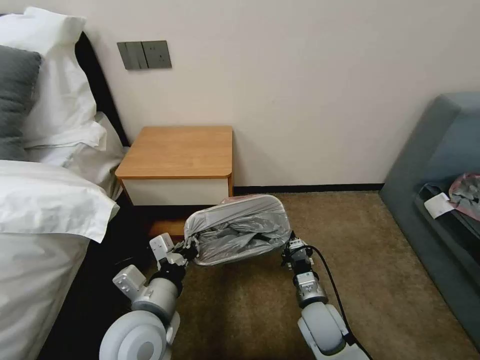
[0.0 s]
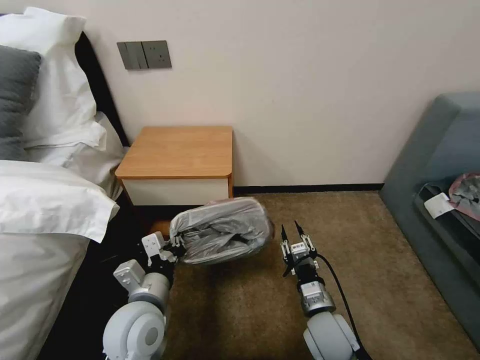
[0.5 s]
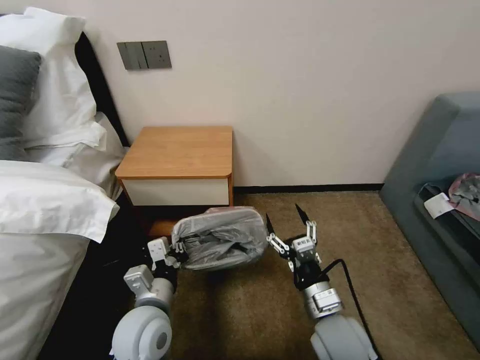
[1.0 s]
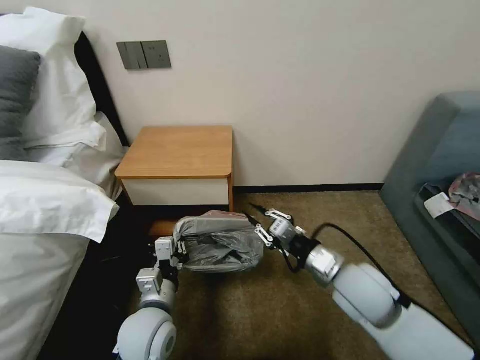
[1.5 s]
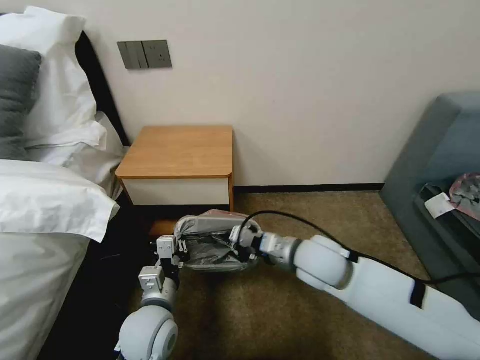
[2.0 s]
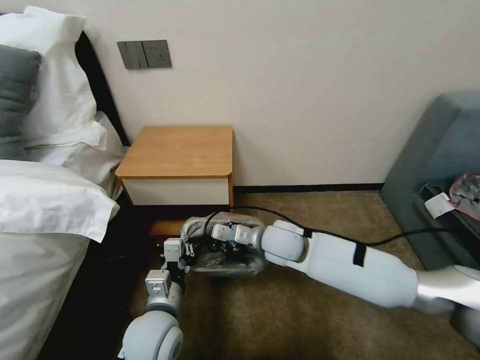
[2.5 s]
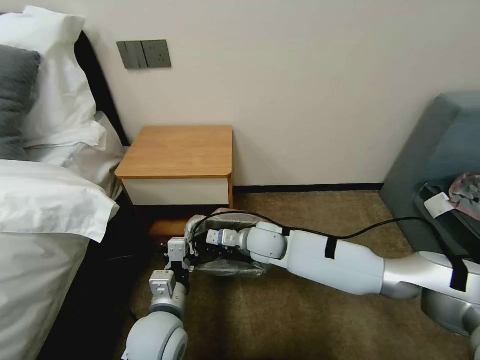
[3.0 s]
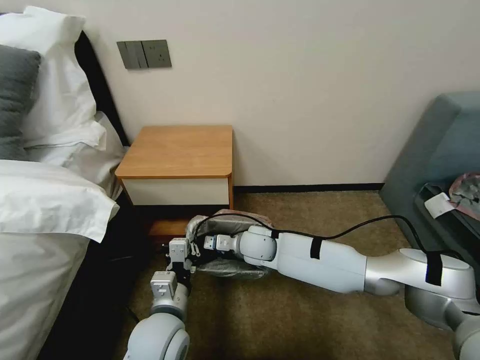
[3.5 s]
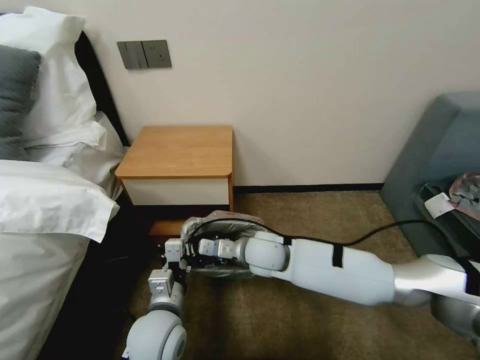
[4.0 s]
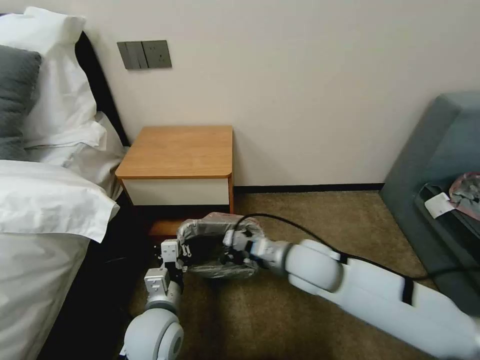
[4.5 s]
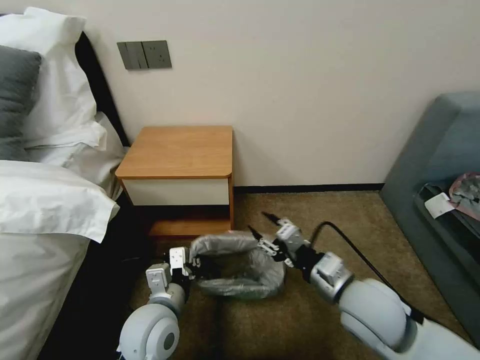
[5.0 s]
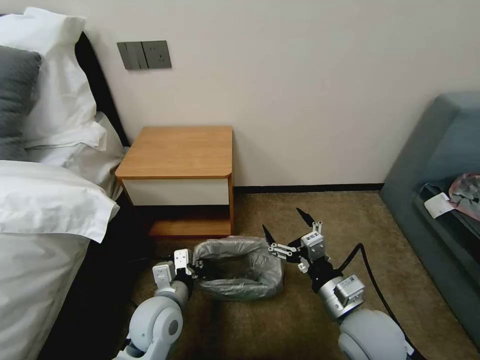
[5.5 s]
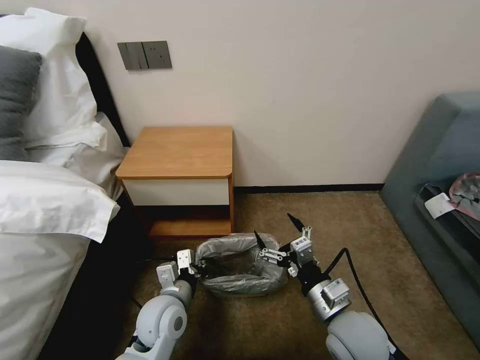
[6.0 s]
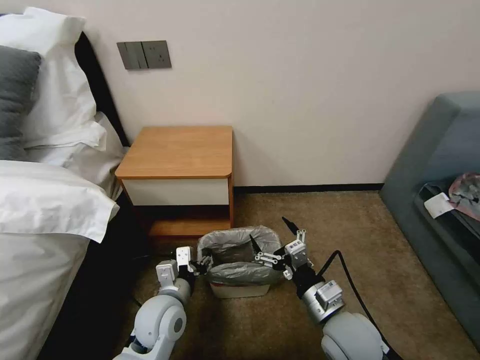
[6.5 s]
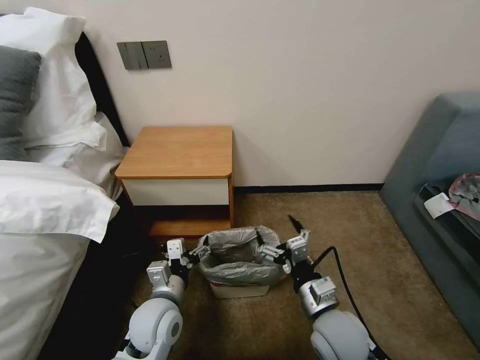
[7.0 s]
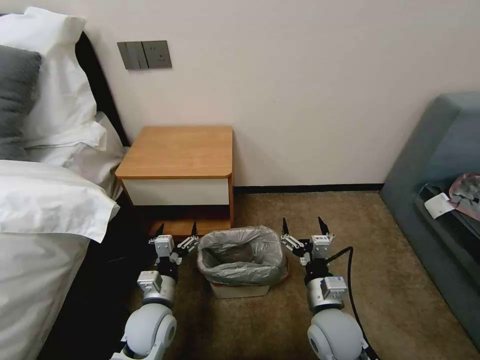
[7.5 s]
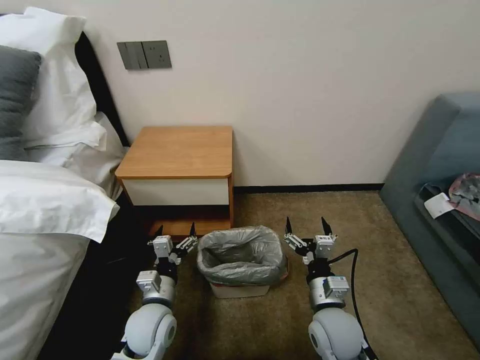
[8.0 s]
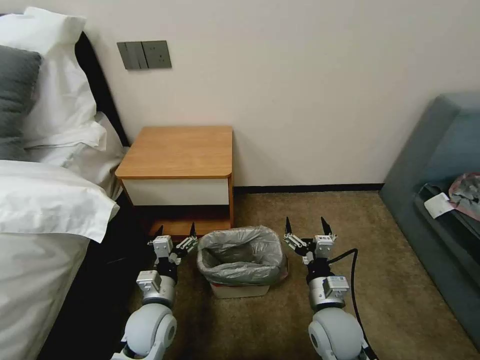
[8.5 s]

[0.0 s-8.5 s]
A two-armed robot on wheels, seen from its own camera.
Task of the whole recording: Pick up the garbage bag from the table and place it over the trash can.
0.0 to 2.0 s: The right gripper is displaced upward and forward by approximately 20 cm, and opens, then closes once more, while the left gripper is displaced downward by about 5 cm.
2.0 to 4.0 s: The right gripper travels to the left and downward by roughly 10 cm.
4.0 to 6.5 s: The right gripper shifts roughly 20 cm backward and to the right, and opens its fingers, while the left gripper opens its fingers.
6.5 to 8.5 s: The right gripper is displaced downward by some 5 cm; the left gripper opens its fingers.

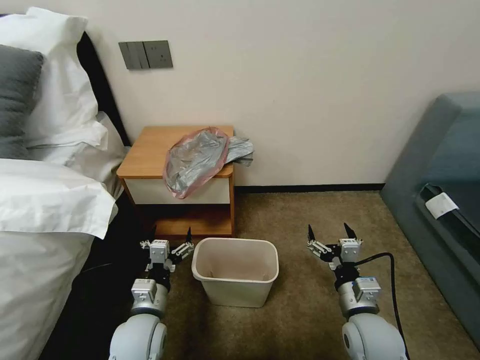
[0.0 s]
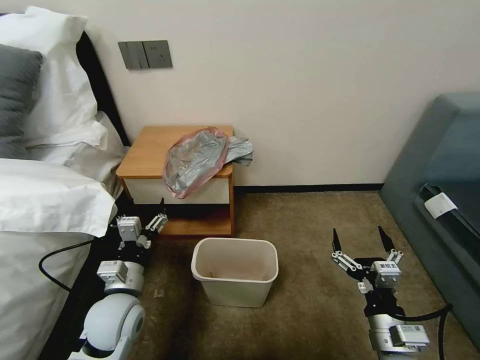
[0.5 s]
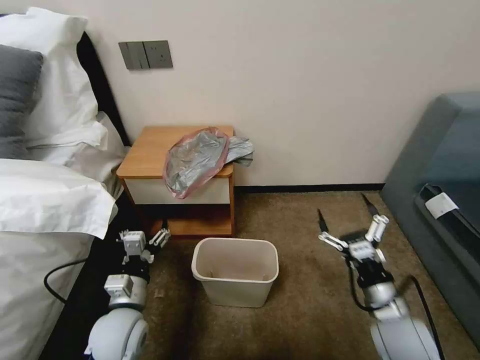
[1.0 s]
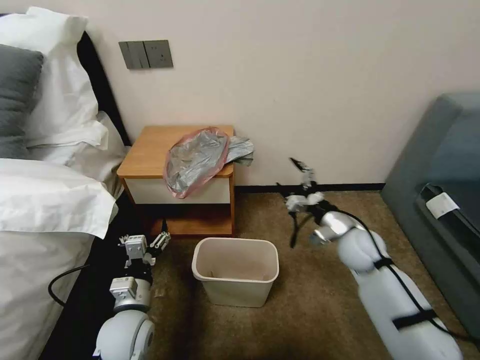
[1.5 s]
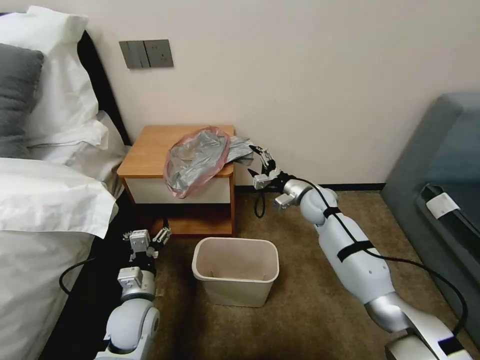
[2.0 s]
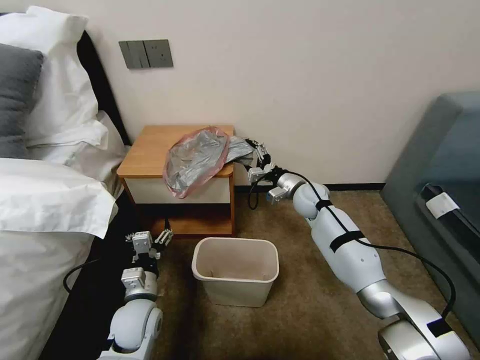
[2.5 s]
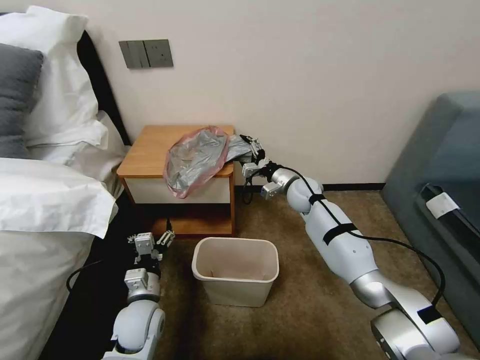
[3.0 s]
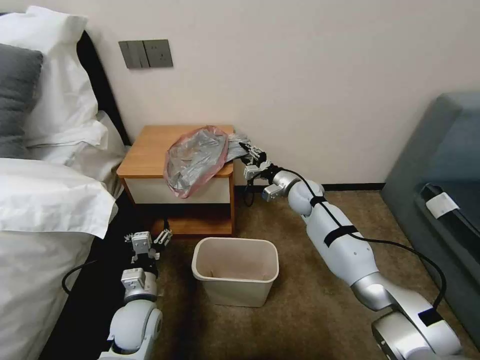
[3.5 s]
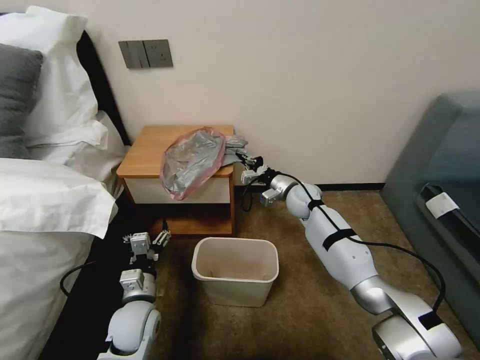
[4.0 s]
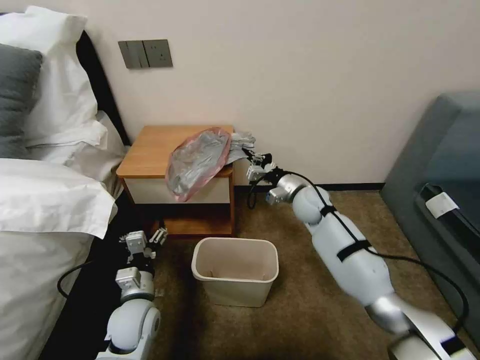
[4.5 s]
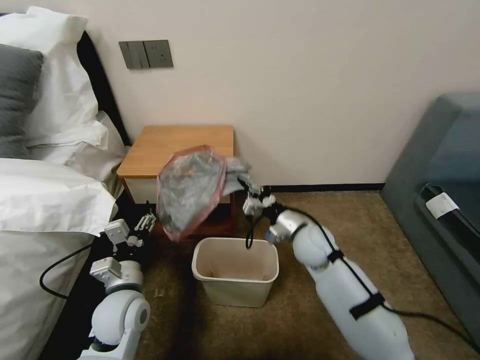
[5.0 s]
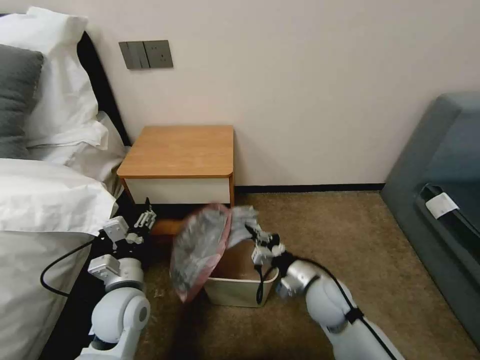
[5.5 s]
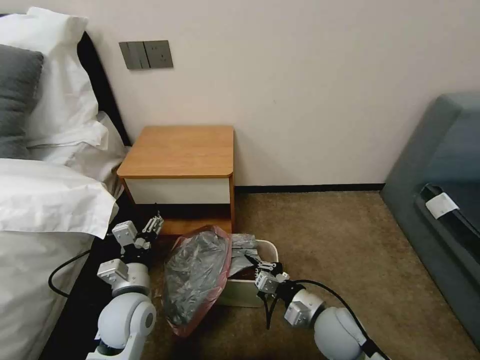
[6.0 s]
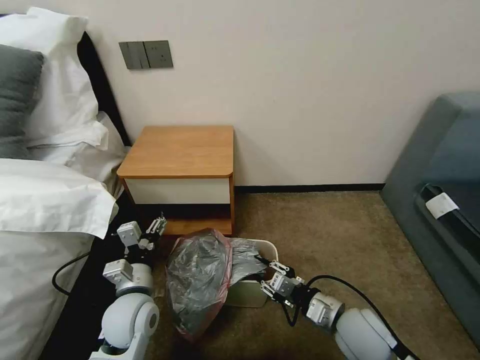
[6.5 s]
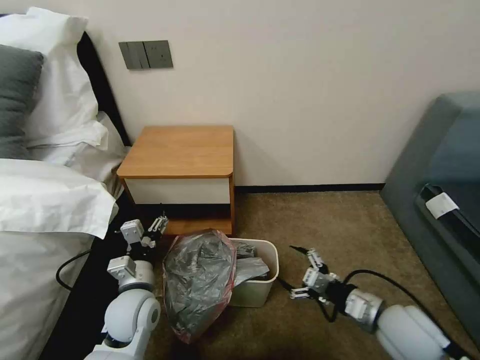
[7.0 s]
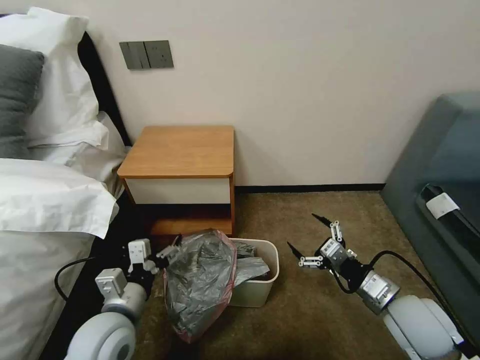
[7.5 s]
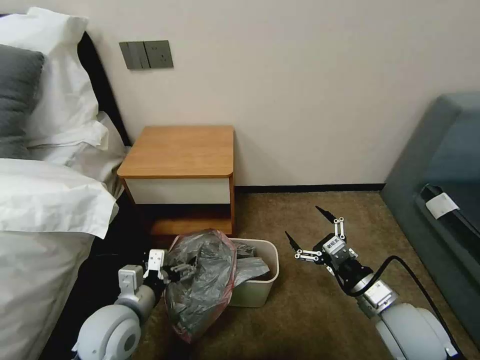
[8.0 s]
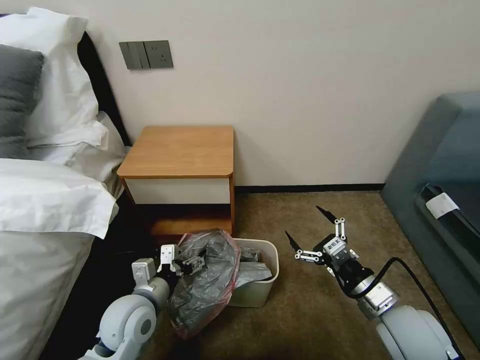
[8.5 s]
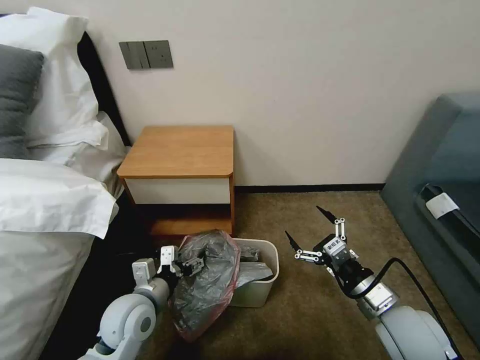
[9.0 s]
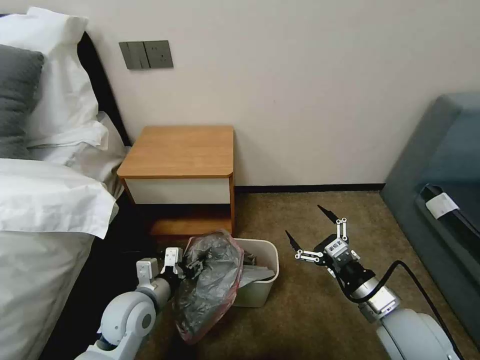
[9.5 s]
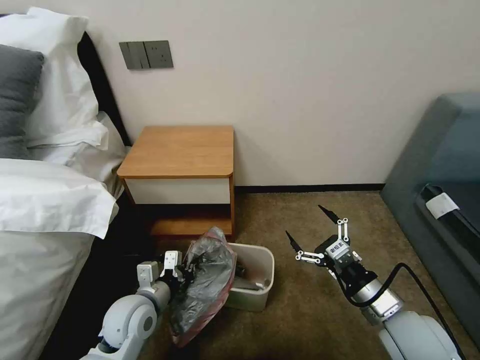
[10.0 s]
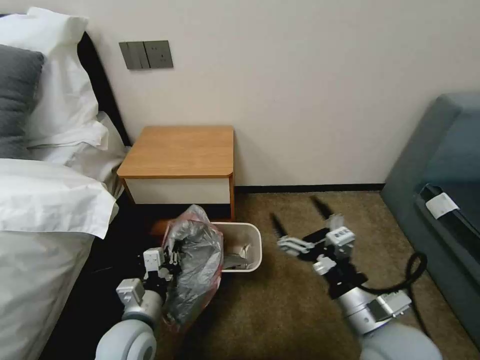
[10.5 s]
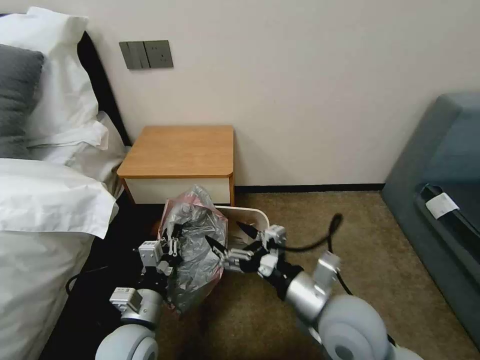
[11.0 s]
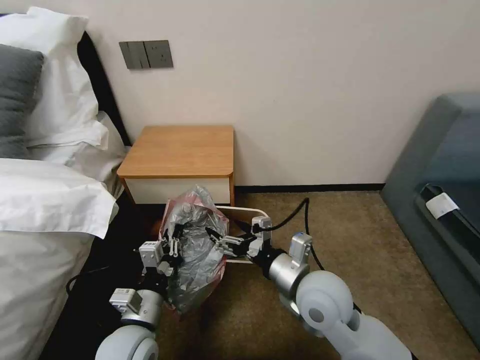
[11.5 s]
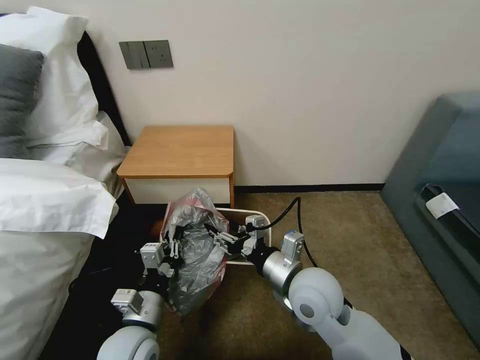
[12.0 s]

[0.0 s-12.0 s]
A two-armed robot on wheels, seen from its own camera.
Task of the whole recording: Pick up the garbage bag from the table and place it over the trash can.
2.0 to 4.0 s: The right gripper closes its fingers.
4.0 to 6.0 s: The right gripper is displaced backward by some 30 cm. Meanwhile the left gripper moves upward, roughly 5 cm.
6.0 to 8.0 s: The right gripper heads to the right and upward, covering approximately 15 cm, and opens its fingers.
8.0 to 10.0 s: The left gripper changes place by about 5 cm, and closes up.
10.0 to 12.0 s: The right gripper travels to the left and forward by some 15 cm, and closes, while the left gripper is displaced backward by about 5 cm.

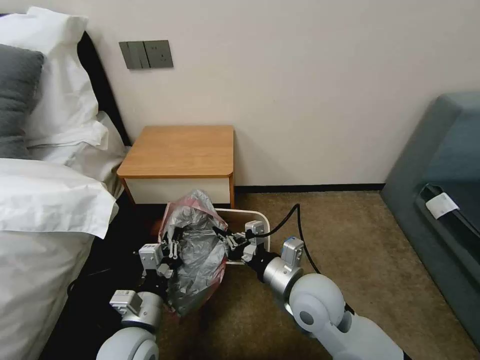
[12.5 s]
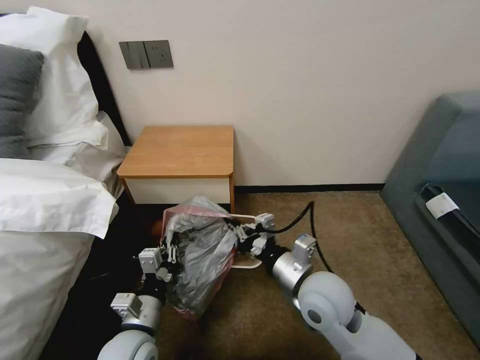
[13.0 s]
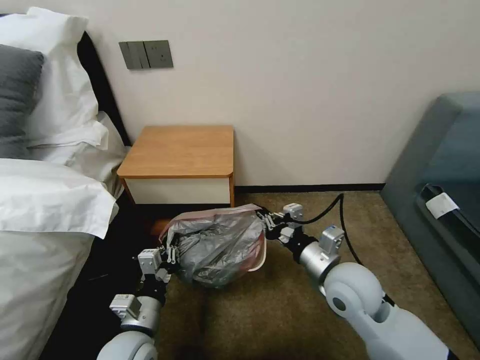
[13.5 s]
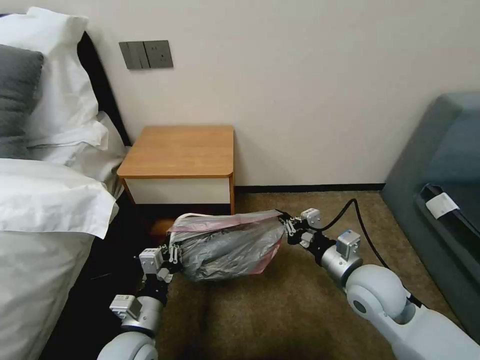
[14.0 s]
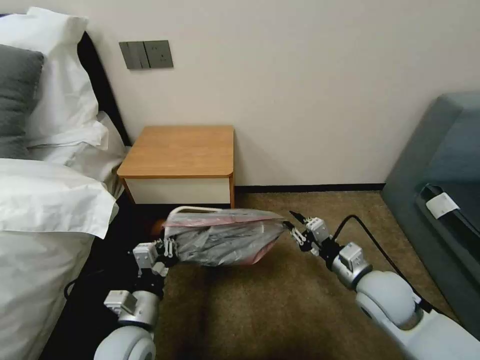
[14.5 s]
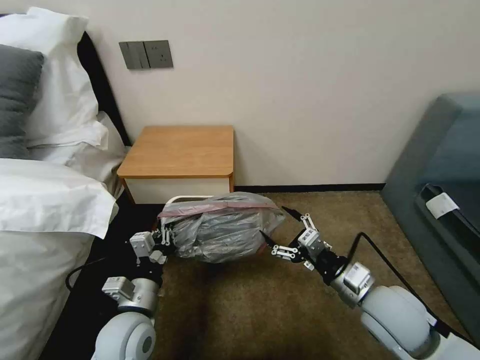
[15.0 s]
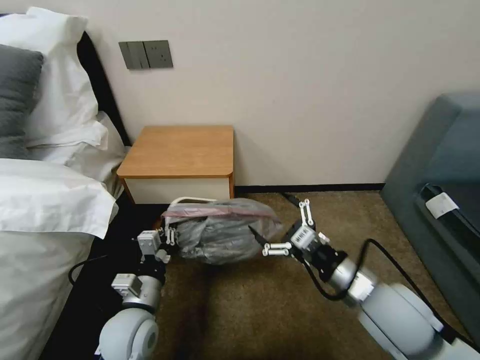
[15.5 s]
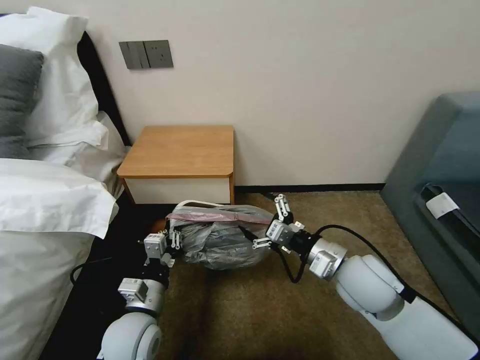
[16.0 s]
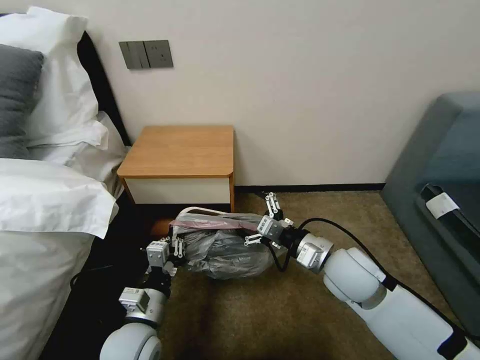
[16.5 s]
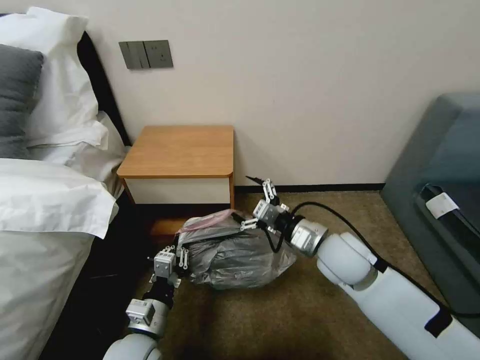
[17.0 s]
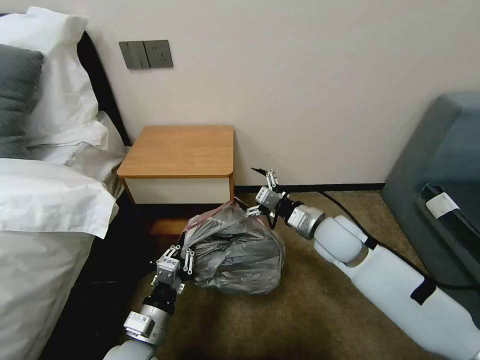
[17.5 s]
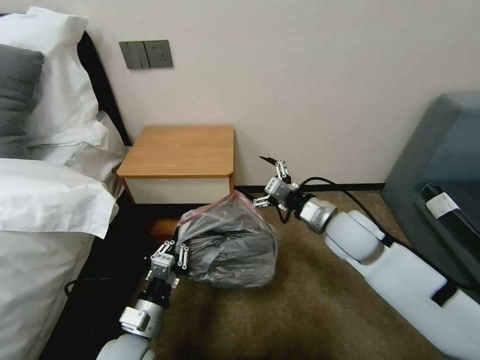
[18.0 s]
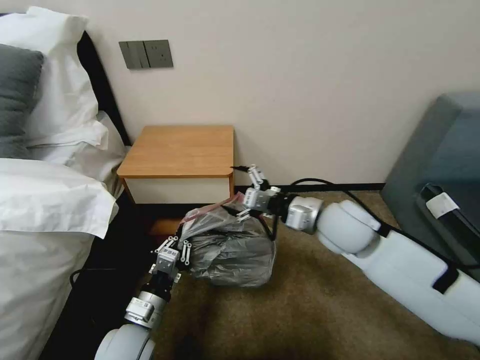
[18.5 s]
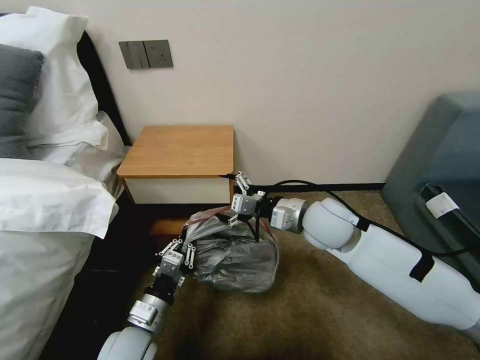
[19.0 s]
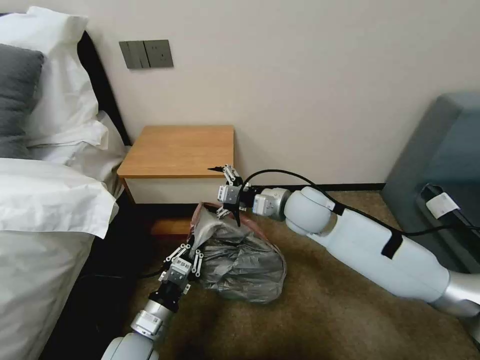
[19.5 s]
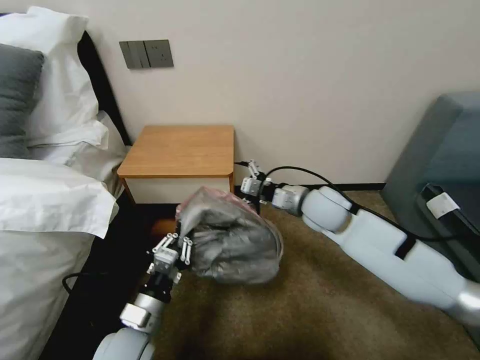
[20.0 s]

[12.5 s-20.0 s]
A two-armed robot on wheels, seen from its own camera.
Task of the whole recording: Pick up the garbage bag from the table and place it over the trash can.
12.5 to 14.5 s: The right gripper shifts some 15 cm to the right.
14.5 to 16.5 s: The right gripper moves to the left, about 5 cm, and opens its fingers.
16.5 to 18.0 s: The right gripper moves forward, roughly 5 cm.
18.0 to 20.0 s: The right gripper is displaced forward by roughly 10 cm.
